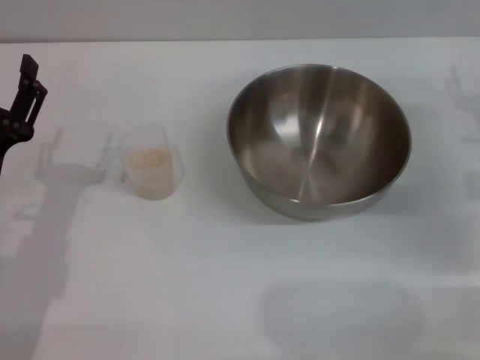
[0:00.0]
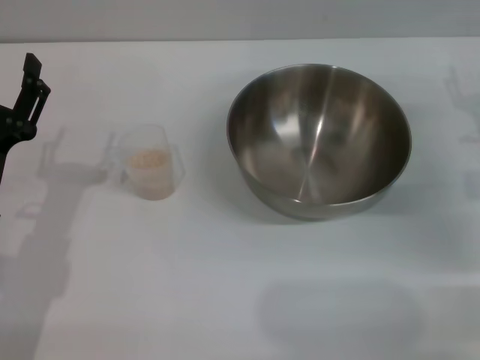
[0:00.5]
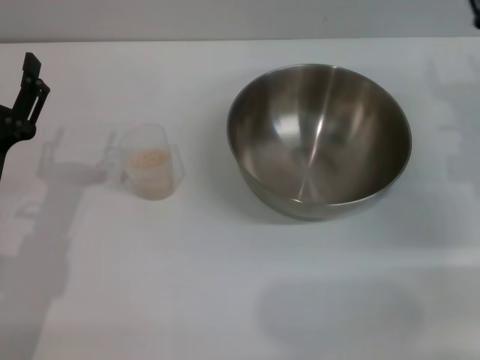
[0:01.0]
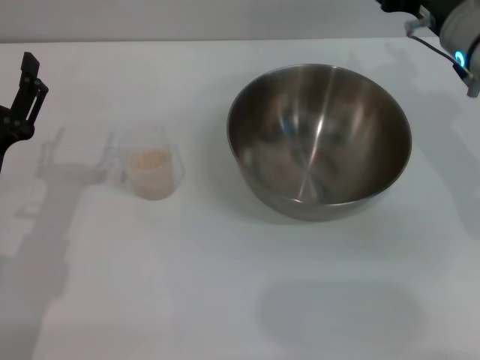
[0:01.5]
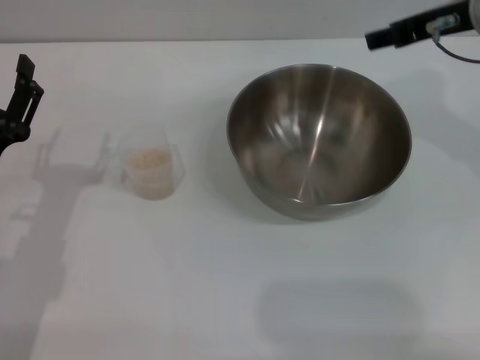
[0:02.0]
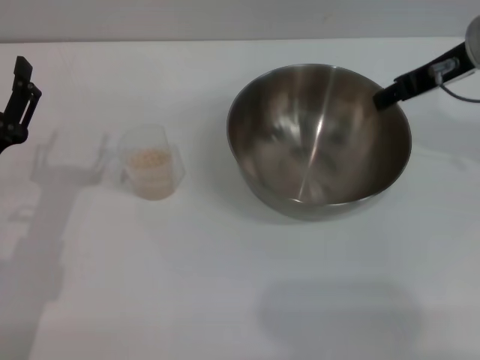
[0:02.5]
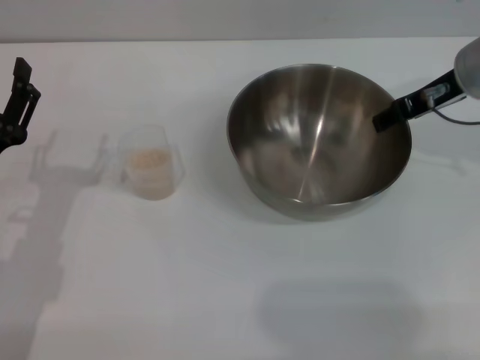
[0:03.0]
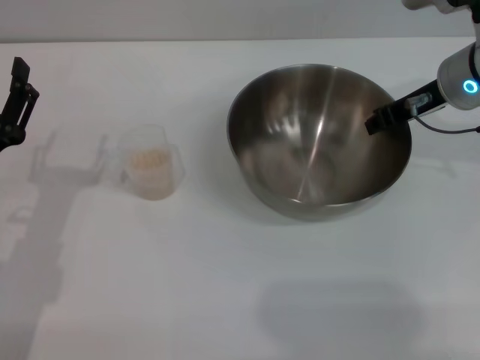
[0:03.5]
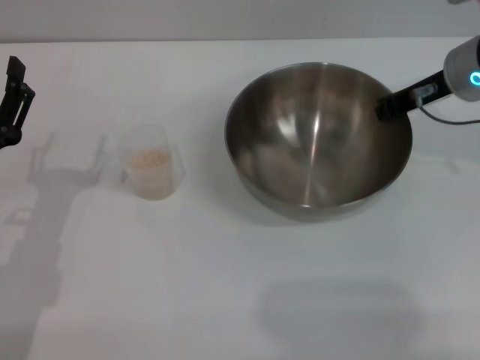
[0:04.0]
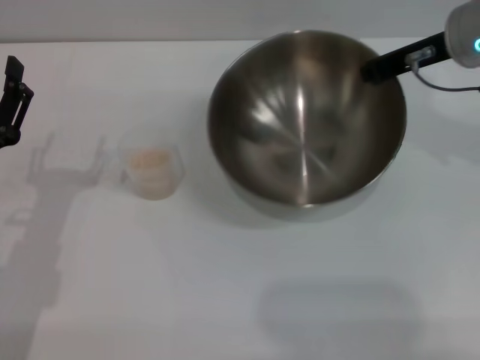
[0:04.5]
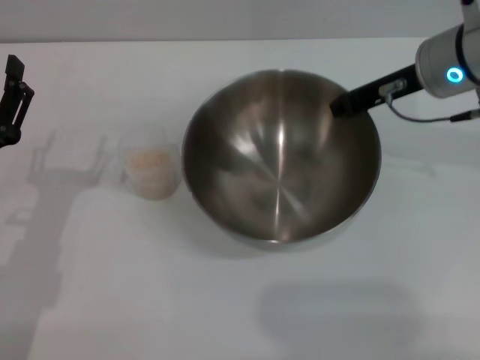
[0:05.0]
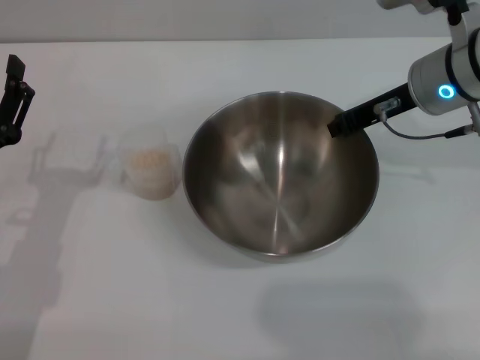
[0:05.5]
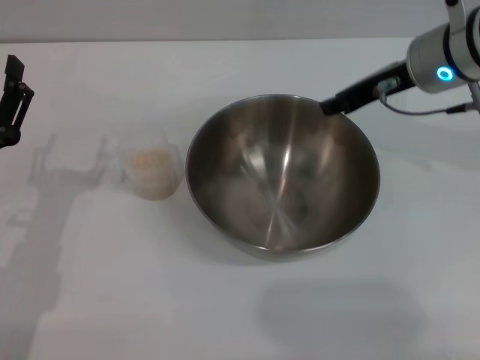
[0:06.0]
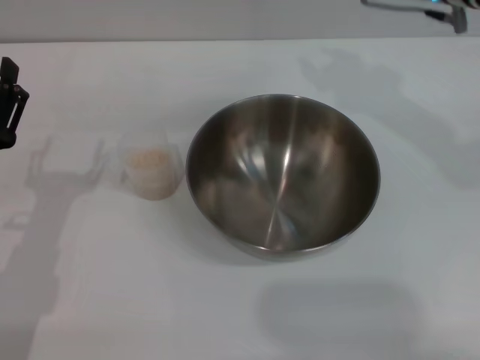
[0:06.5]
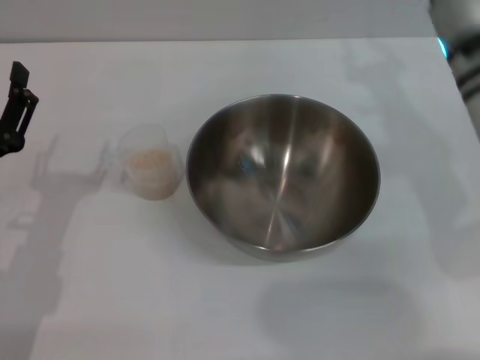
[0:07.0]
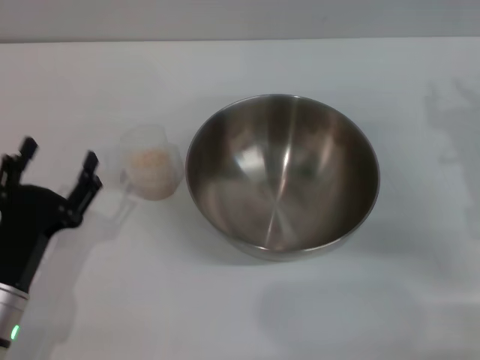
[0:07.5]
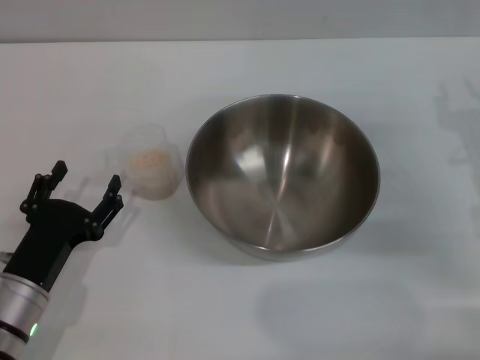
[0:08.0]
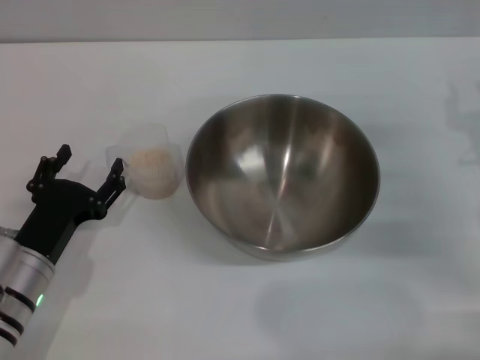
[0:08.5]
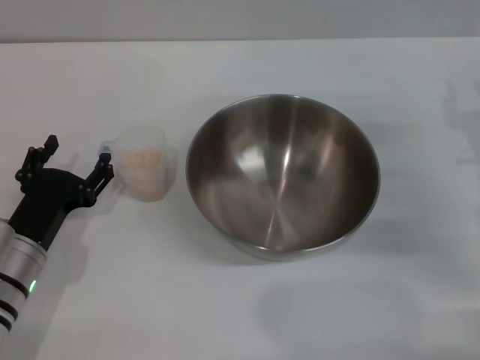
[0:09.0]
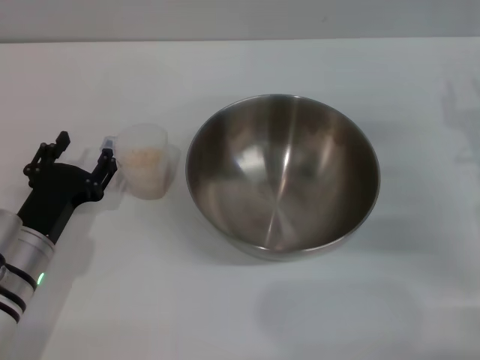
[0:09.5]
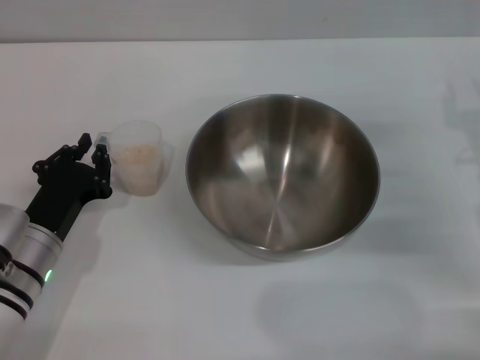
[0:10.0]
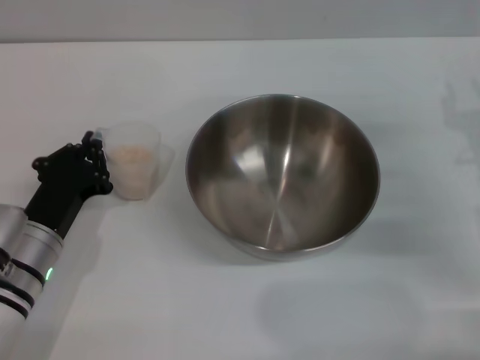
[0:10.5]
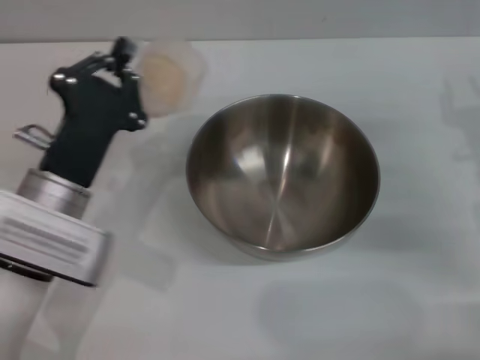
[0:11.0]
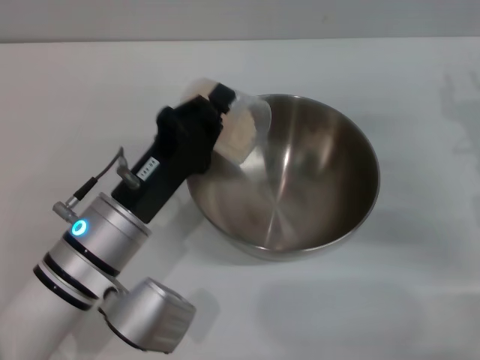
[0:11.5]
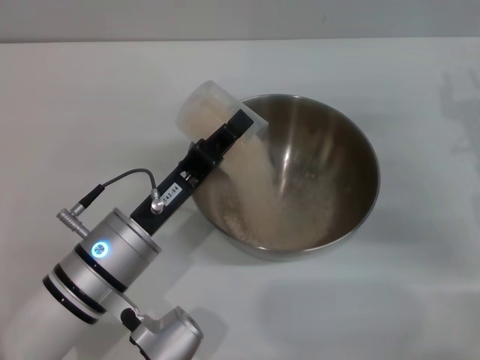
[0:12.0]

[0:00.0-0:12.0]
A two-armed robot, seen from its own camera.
Task of the whole recording: Place the bowl in the middle of the table with one hand and pour the rice from the grain cup into it with the other hand.
Step, 0:00.0 to 0:04.0: Pick up the bowl with the right gripper.
Step, 0:04.5 to 0:06.0: Place the bowl in the center of view with the right gripper.
Step, 0:06.5 to 0:10.5: Pick up the cup with rice in it with the left gripper.
0:00.0 to 0:02.0: The right gripper moves upward and to the left, some 20 cm.
0:02.0 to 0:04.0: The right gripper goes approximately 5 cm downward, and closes its fingers.
0:06.0 to 0:08.0: The left gripper travels downward by some 5 cm; the right gripper travels to the right, downward and backward by approximately 15 cm.
0:08.0 to 0:10.0: The left gripper heads forward, covering roughly 5 cm, and closes.
0:10.0 to 0:12.0: The left gripper goes some 10 cm to the right, and closes its fingers.

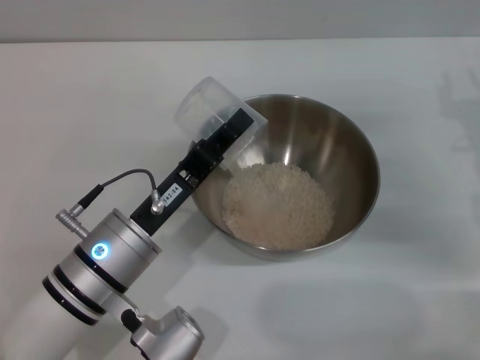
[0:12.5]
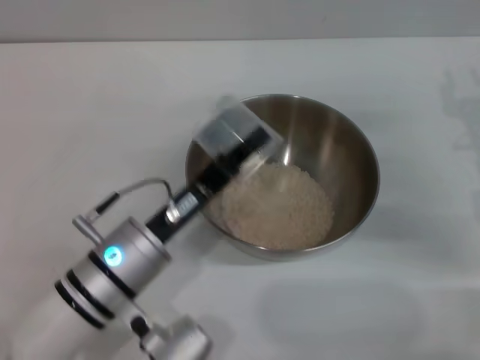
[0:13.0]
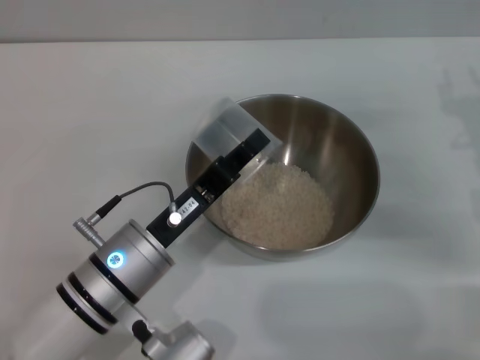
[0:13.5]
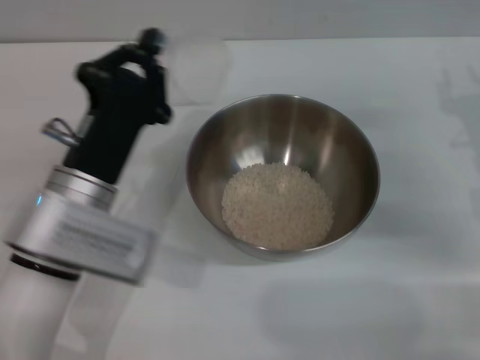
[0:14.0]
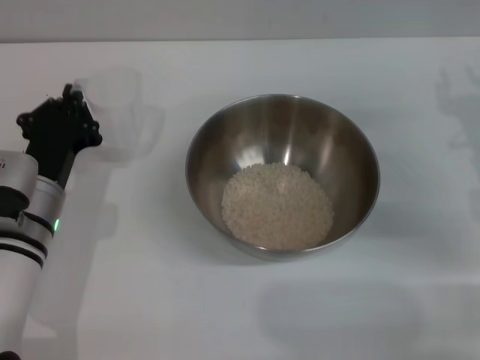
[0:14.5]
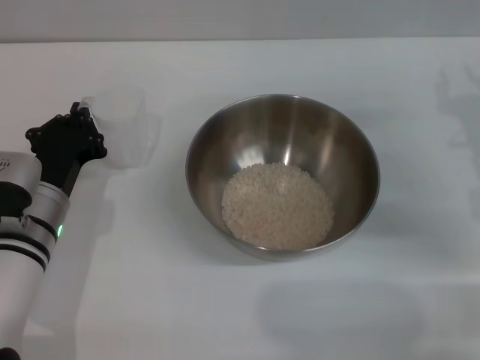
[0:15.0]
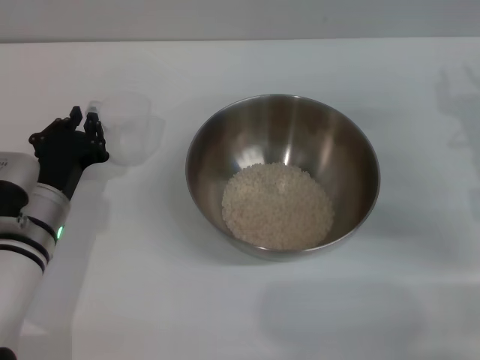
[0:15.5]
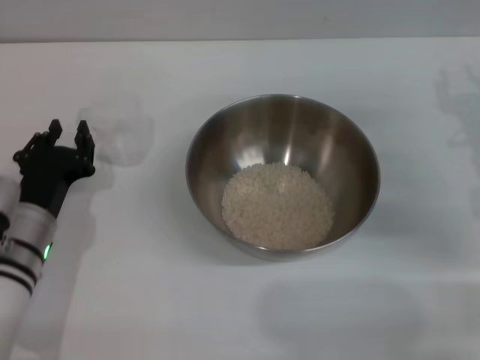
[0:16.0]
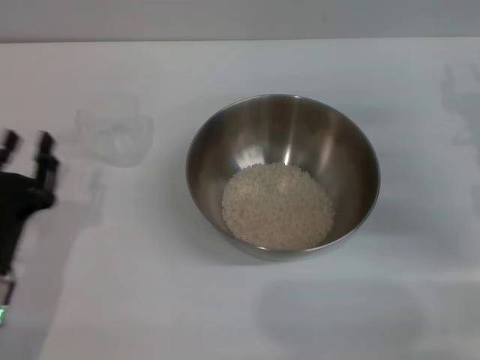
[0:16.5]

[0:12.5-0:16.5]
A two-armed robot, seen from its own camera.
Task of the whole recording: Place the bowl in the middle of the table with one hand and pour the rice from the grain cup into it with the other hand.
Step, 0:14.0 to 0:16.0: Place the cup on the table with the left gripper.
0:12.5 to 0:14.5: The left gripper goes roughly 10 cm to the left and forward.
0:14.5 to 0:16.5: The left gripper travels backward by some 10 cm.

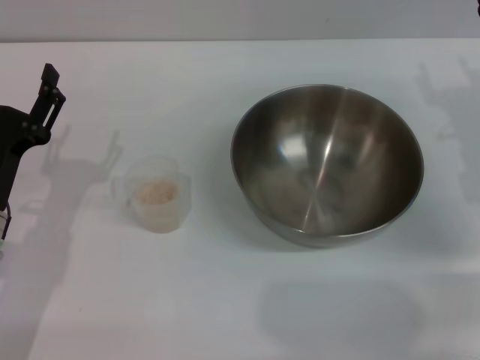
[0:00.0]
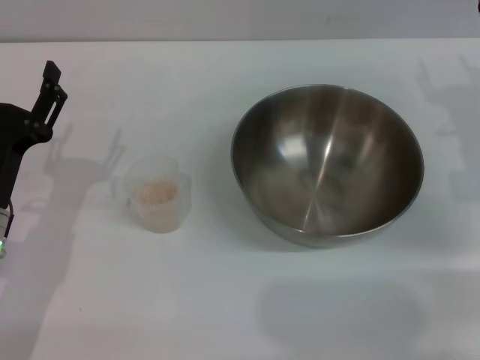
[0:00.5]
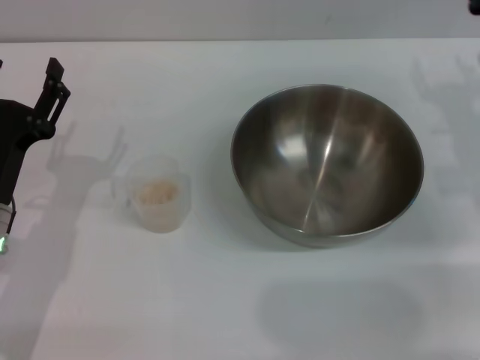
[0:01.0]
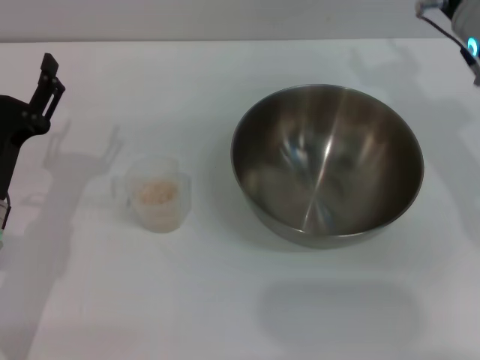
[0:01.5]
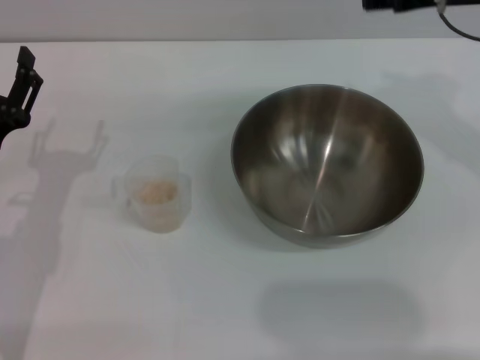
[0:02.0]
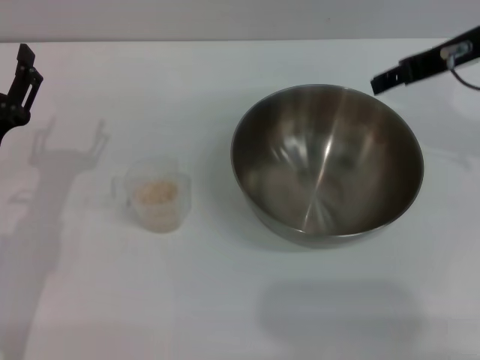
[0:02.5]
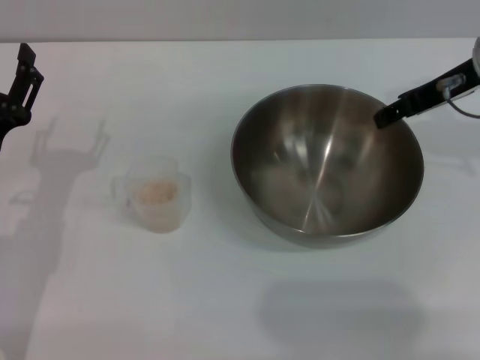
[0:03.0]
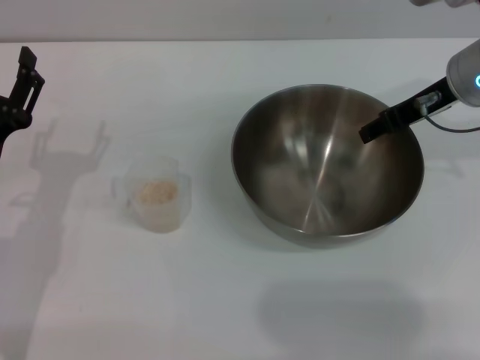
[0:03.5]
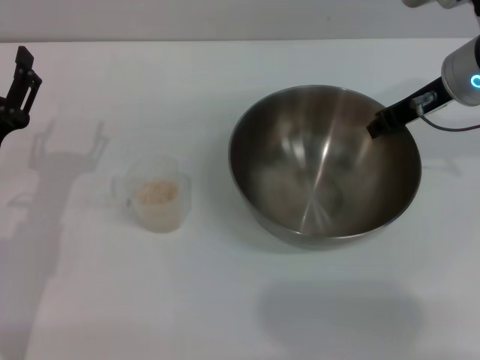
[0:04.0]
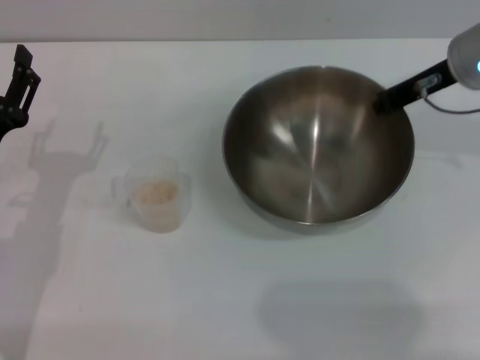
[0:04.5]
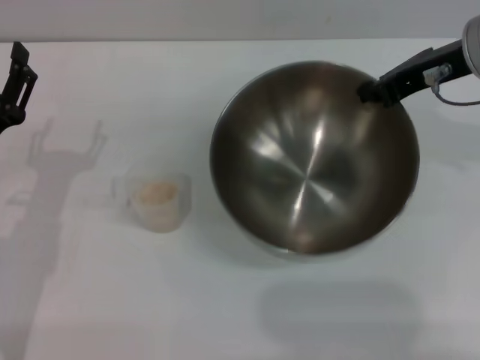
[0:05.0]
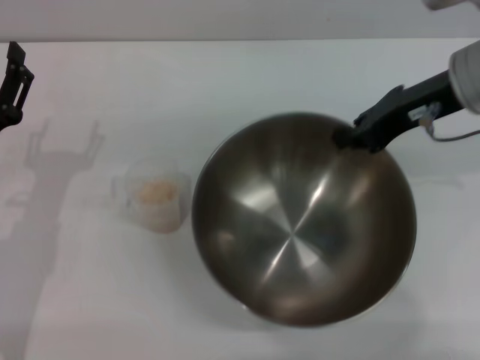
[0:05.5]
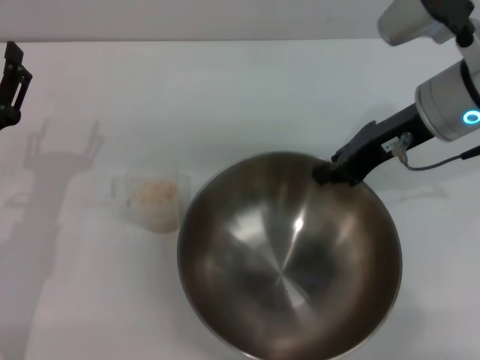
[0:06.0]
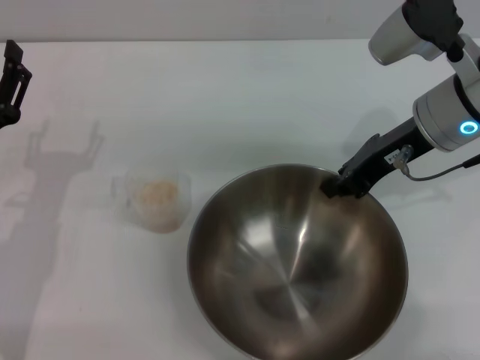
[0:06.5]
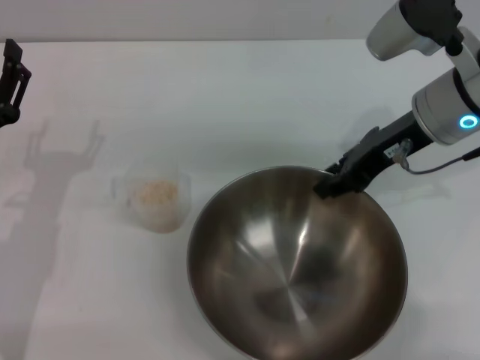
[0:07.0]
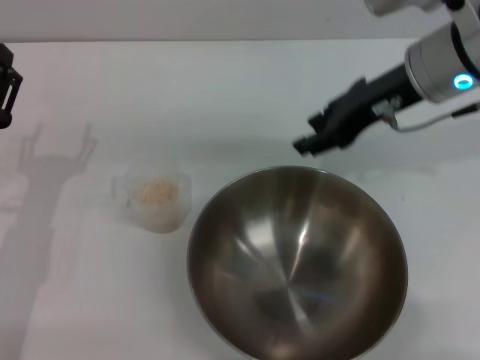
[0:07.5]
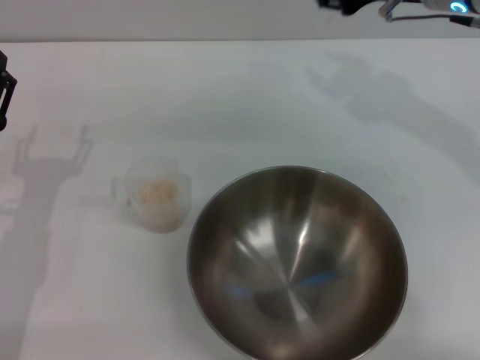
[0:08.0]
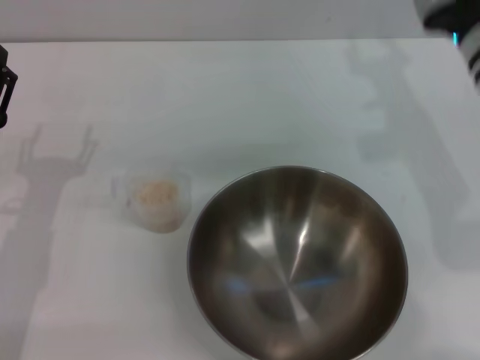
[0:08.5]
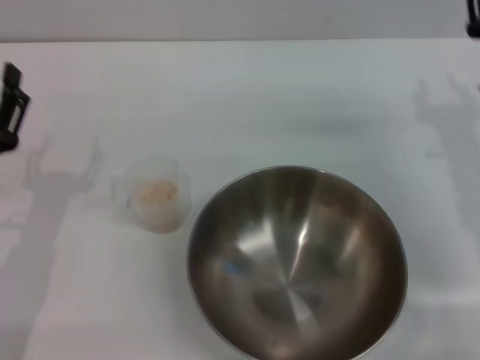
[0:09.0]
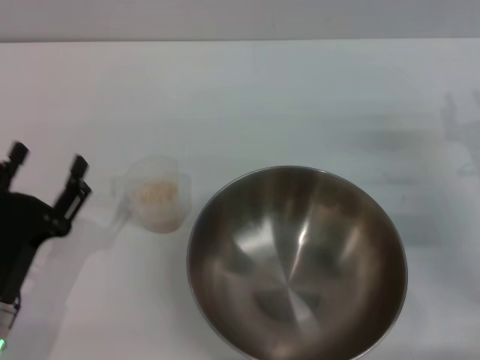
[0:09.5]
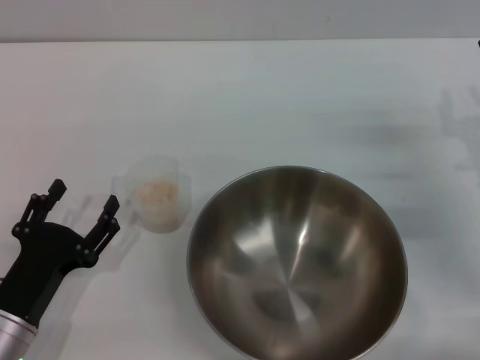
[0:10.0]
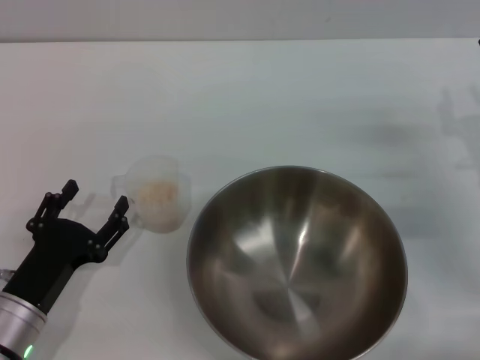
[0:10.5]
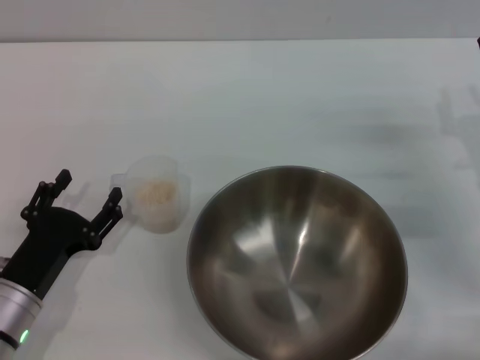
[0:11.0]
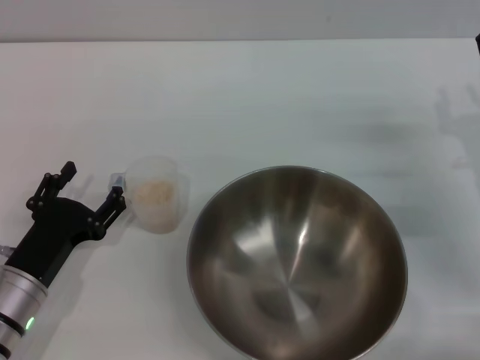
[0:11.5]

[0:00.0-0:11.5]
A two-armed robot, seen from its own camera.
Task of the whole recording: Place the bowl in the middle of the table with one hand and pour the rice from the grain cup into it with the other hand.
Step, 0:00.0 to 0:05.0: Pick up the bowl with the right gripper.
Step, 0:05.5 to 0:07.5: Place the bowl in the center of view with the right gripper.
0:00.0 to 0:02.0: The right gripper travels upward and to the left by about 15 cm.
0:02.0 to 0:04.0: The right gripper goes roughly 10 cm downward, and closes up.
0:04.0 to 0:06.0: The right gripper closes.
0:06.0 to 0:07.5: The right gripper opens its fingers.
0:07.5 to 0:09.5: The left gripper travels backward by roughly 5 cm. Meanwhile the right gripper goes roughly 20 cm downward, to the right and backward.
0:09.5 to 0:11.5: There are only small adjustments of the grippers.
